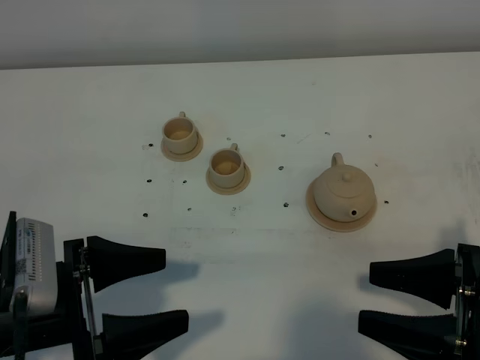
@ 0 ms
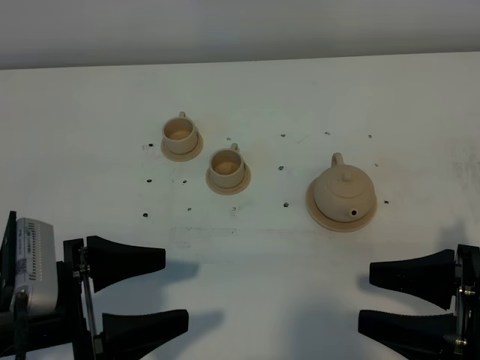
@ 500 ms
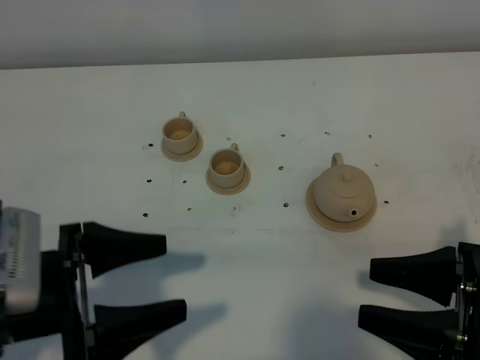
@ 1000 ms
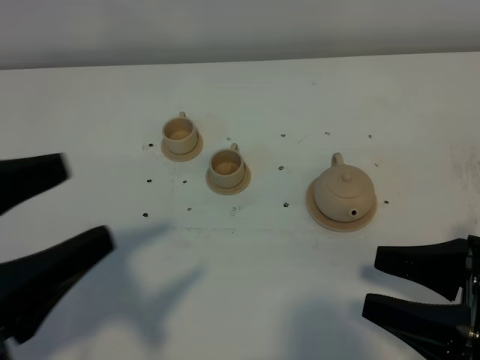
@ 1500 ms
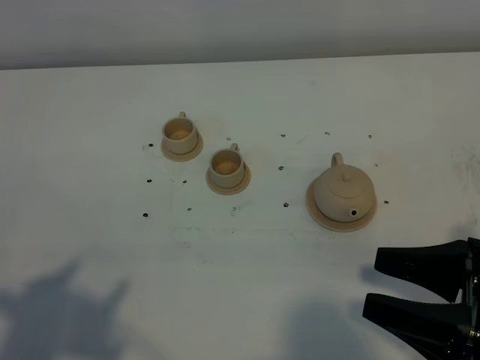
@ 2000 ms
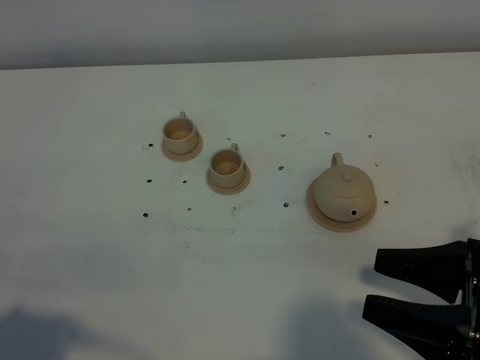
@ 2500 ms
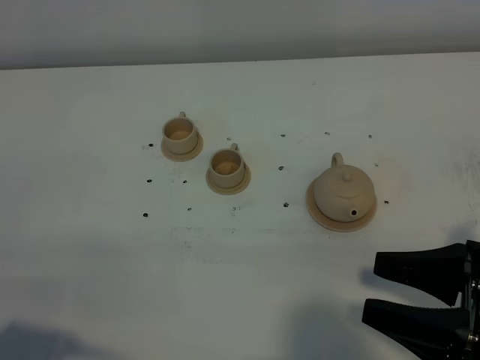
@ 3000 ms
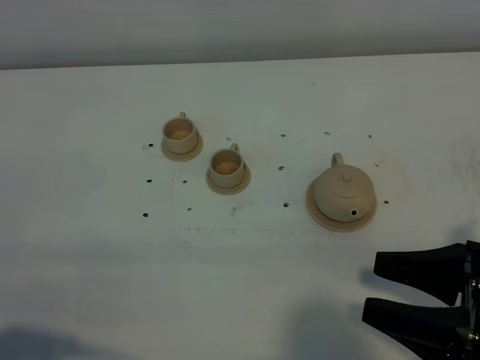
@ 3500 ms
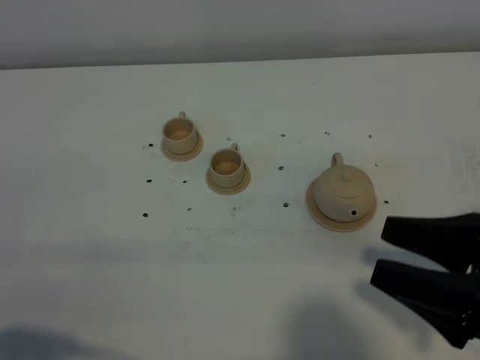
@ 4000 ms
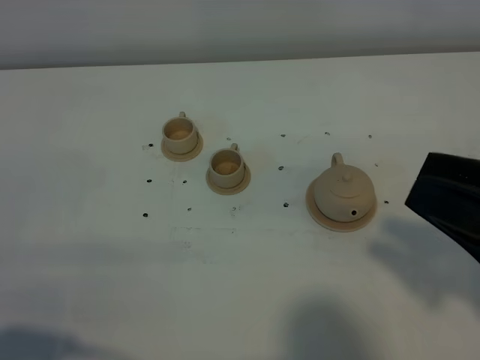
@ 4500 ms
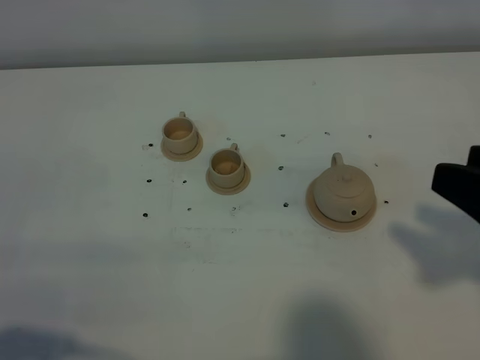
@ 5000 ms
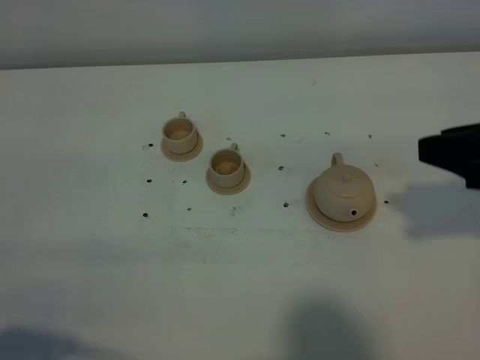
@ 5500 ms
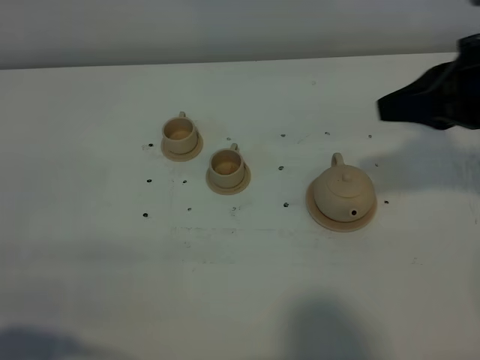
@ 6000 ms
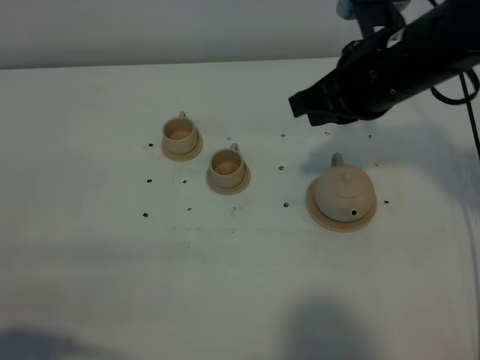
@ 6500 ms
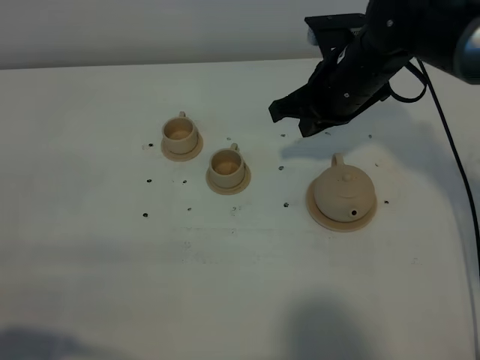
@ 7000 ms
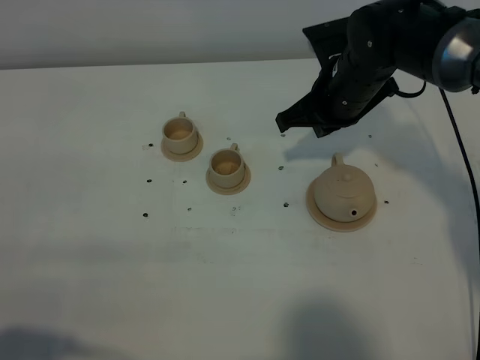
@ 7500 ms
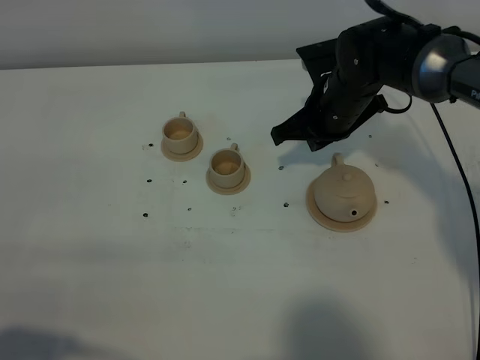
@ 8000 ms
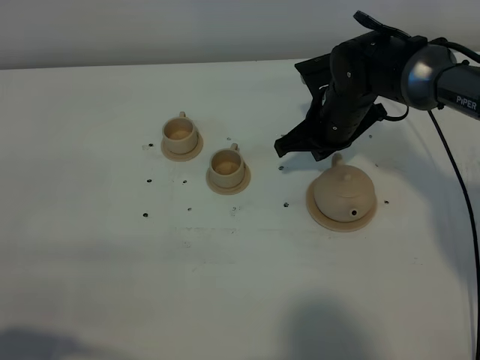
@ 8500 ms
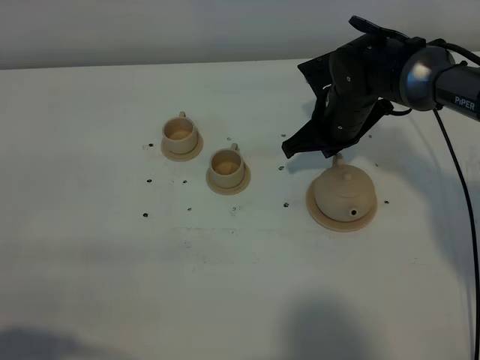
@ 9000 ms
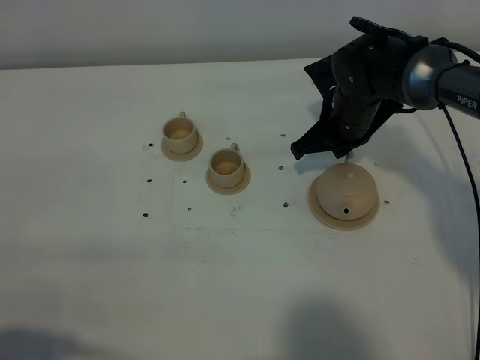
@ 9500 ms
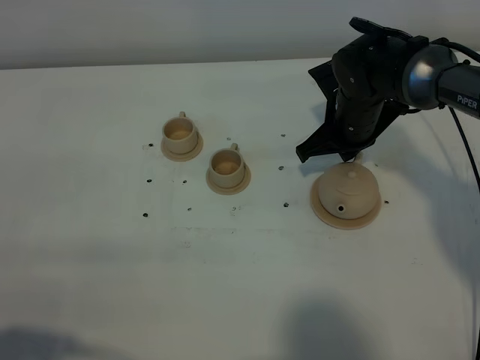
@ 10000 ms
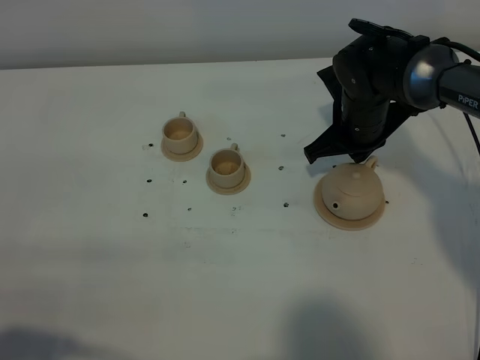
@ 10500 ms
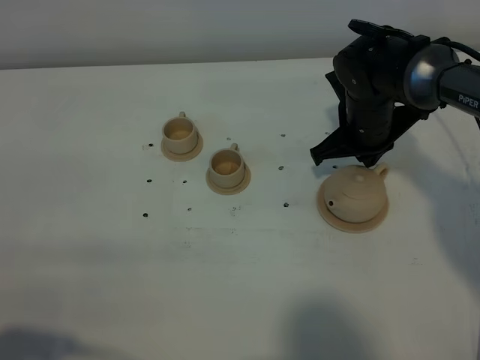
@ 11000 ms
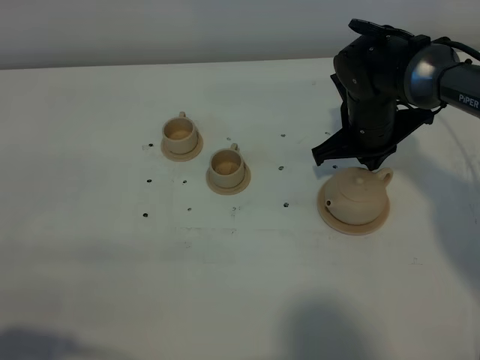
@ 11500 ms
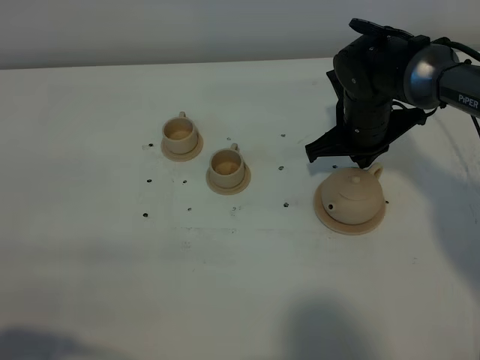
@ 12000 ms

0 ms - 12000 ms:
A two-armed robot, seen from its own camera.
Task of the whole recording: grasp the brown teapot and pour the tea into the two brown teacups one by one, put the brown teapot back in its original place.
0 ms - 2000 ms: The left gripper moves upward and backward, approximately 20 cm, and closes its fingers.
2000 ms - 4000 ms: The left gripper shifts roughly 10 cm downward, and closes its fingers.
4000 ms - 6000 ms: The right gripper shifts approximately 15 cm forward and upward, and closes.
6000 ms - 8000 ms: The right gripper moves downward, forward and to the left, roughly 25 cm.
8000 ms - 10000 ms: The grippers make only small movements.
10000 ms - 12000 ms: The grippers move only a little.

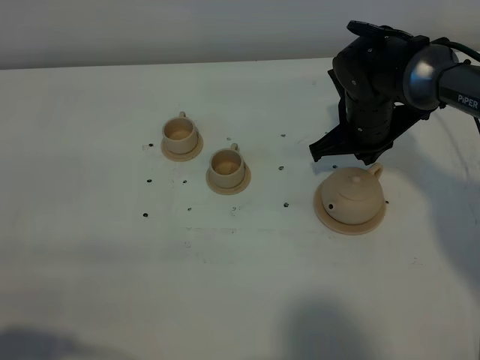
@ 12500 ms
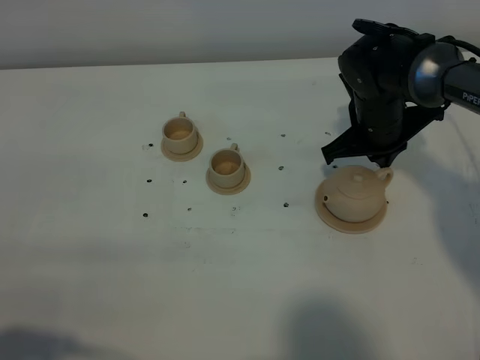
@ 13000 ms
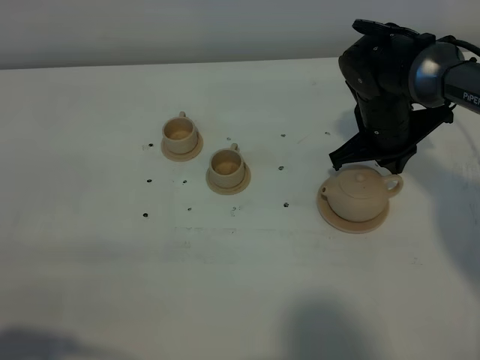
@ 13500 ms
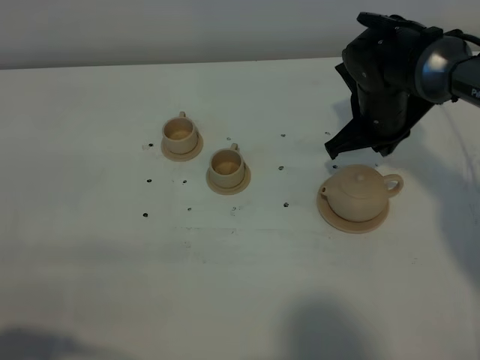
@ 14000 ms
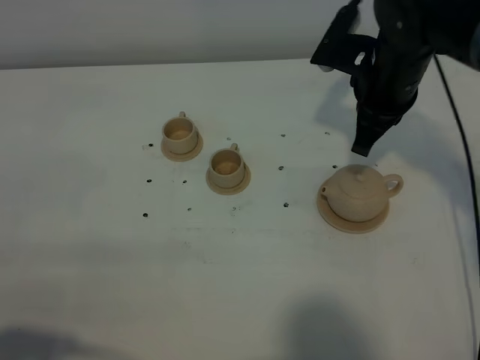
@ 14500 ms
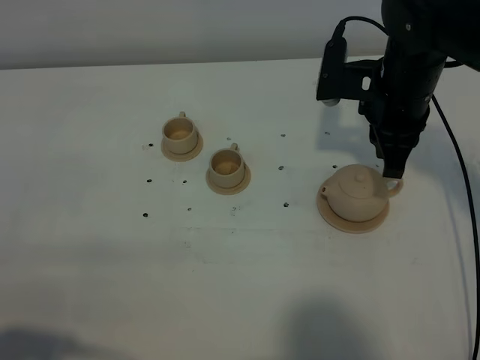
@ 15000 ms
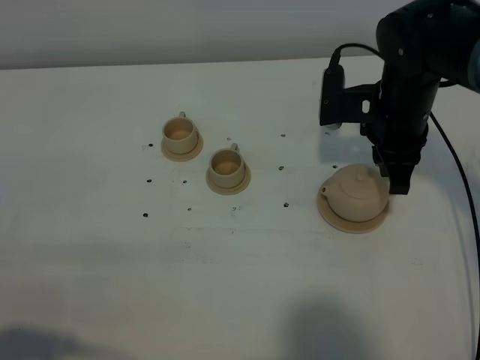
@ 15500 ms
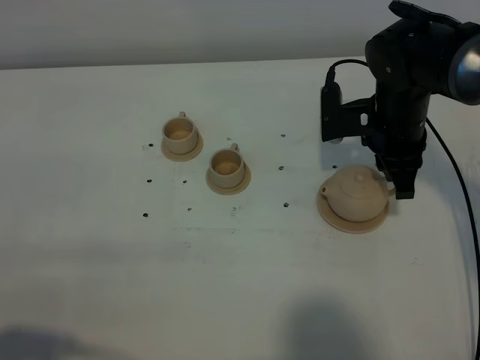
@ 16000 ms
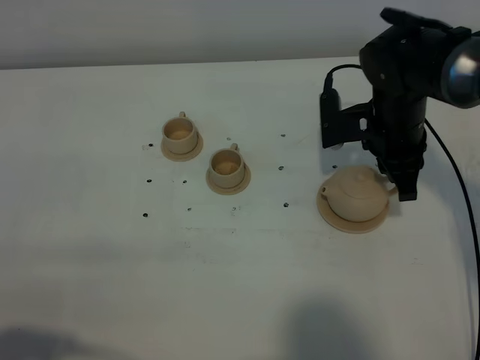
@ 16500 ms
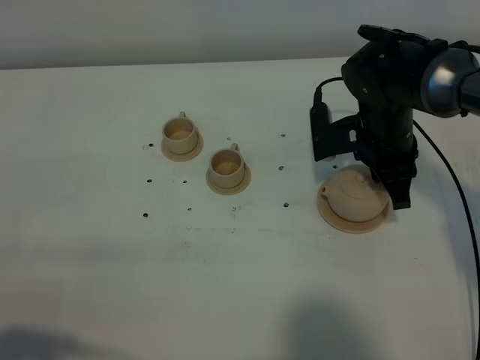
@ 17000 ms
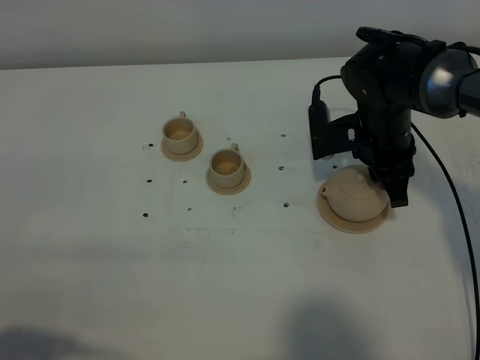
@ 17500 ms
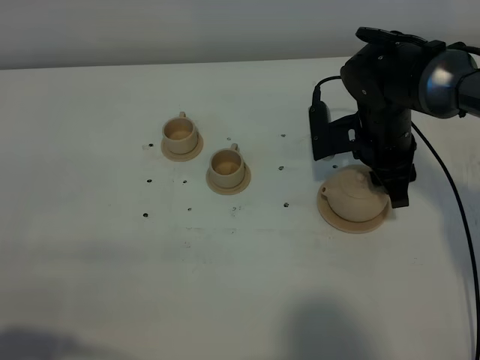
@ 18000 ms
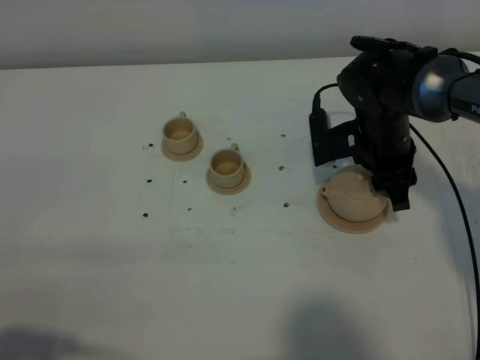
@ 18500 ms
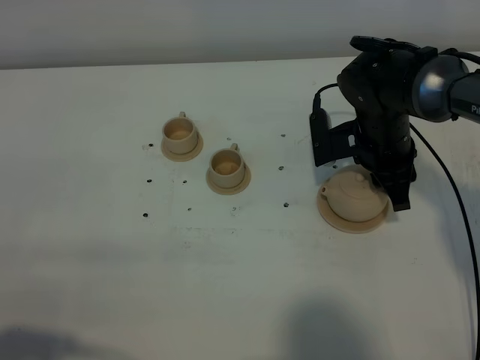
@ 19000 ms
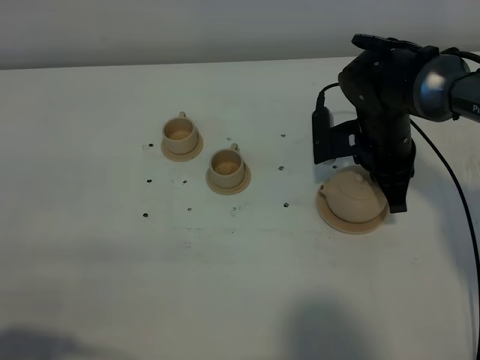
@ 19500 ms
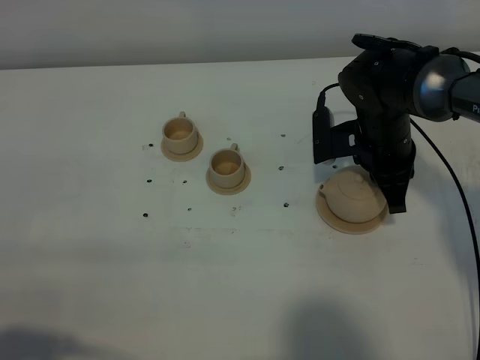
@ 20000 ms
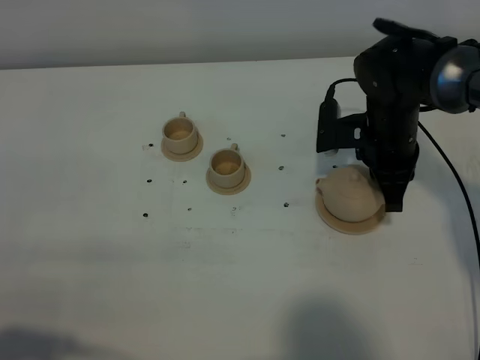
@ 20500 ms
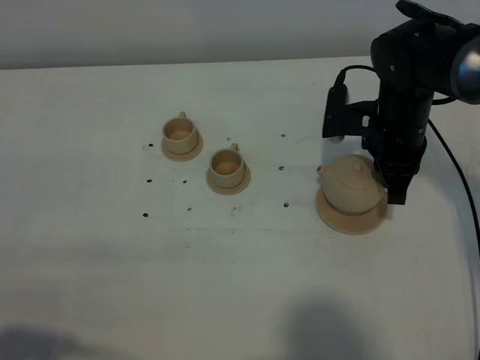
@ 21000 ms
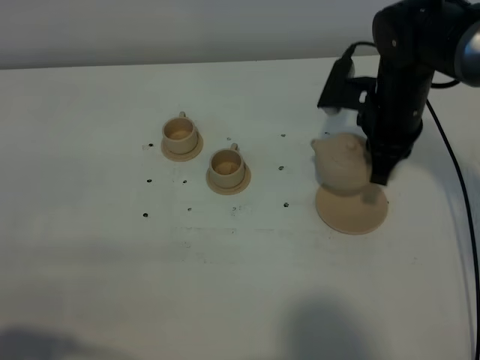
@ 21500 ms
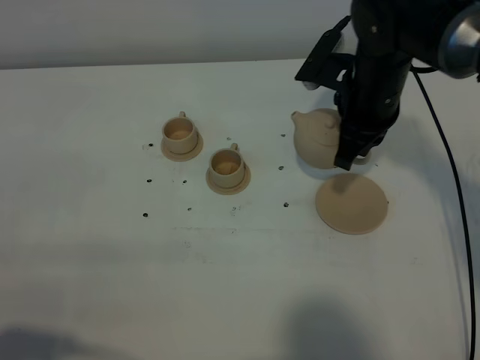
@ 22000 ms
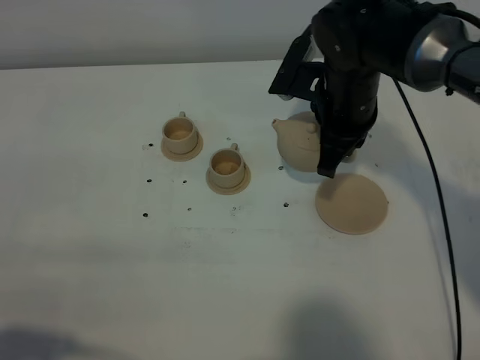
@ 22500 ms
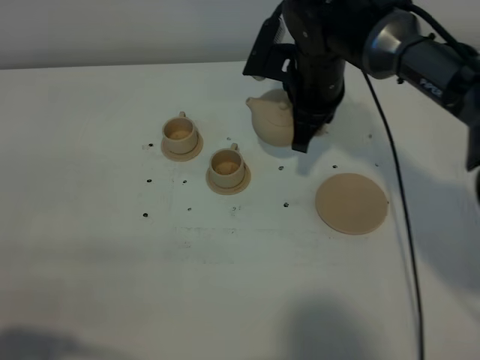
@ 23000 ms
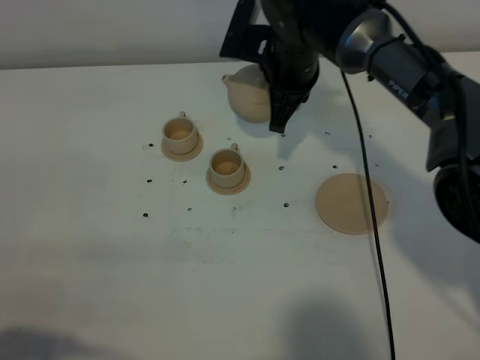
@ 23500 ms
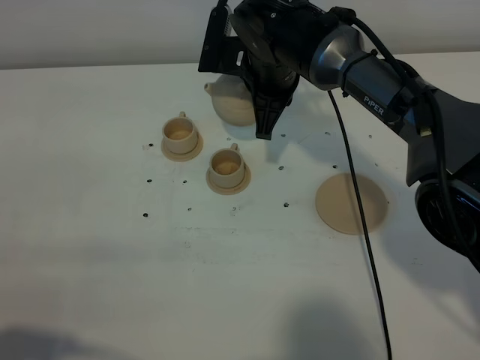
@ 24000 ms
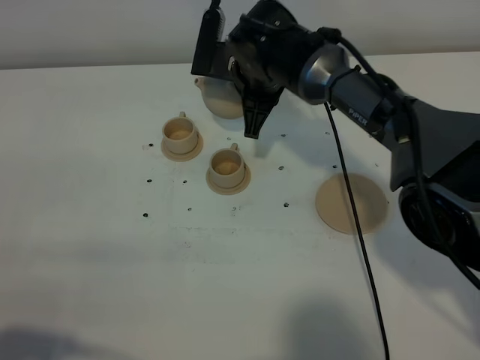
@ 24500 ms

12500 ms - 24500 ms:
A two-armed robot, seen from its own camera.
Task of the whole recording: grasp the brown teapot and pour the tea into the two brown teacups one by one, put the brown teapot back in its original place.
12500 ms - 14500 ms: The right gripper is displaced upward by roughly 10 cm.
14500 ms - 16500 ms: The right gripper goes roughly 5 cm downward, and opens.
16500 ms - 18500 ms: The right gripper opens.
18500 ms - 20500 ms: The right gripper closes its fingers.
20500 ms - 22500 ms: The right gripper moves upward and to the left, about 10 cm.
22500 ms - 24500 ms: The right gripper shifts about 10 cm to the left and forward.

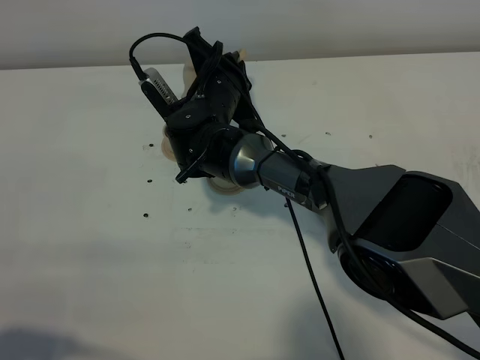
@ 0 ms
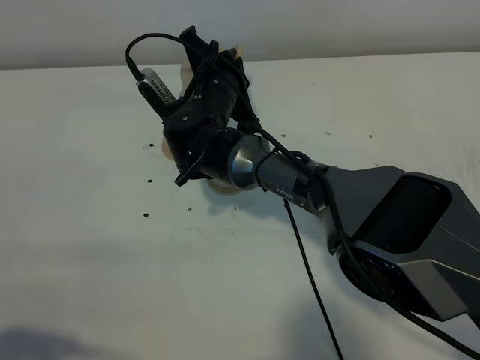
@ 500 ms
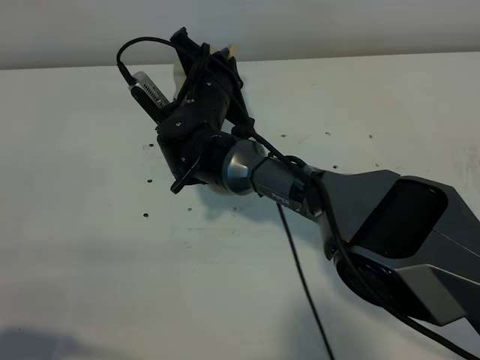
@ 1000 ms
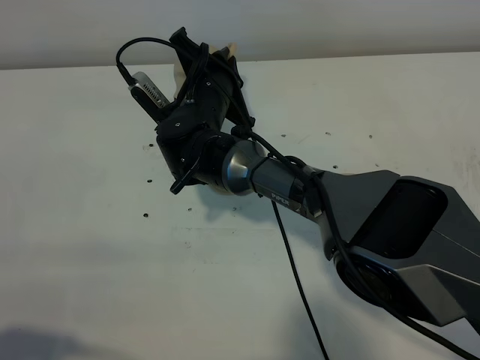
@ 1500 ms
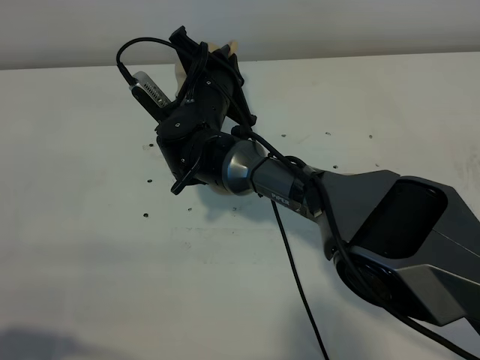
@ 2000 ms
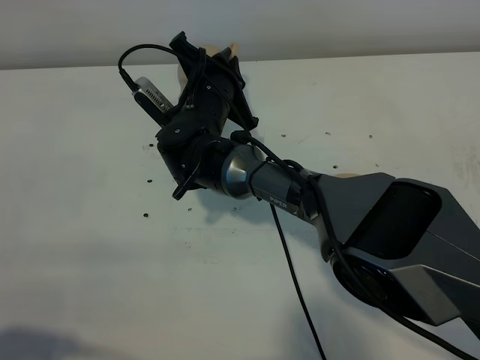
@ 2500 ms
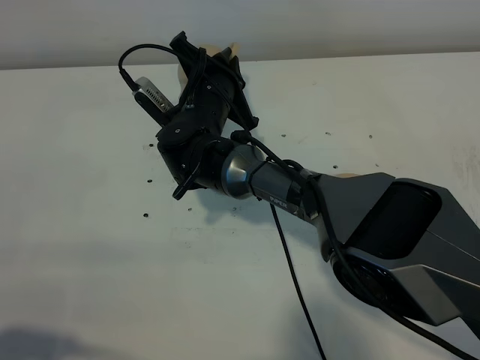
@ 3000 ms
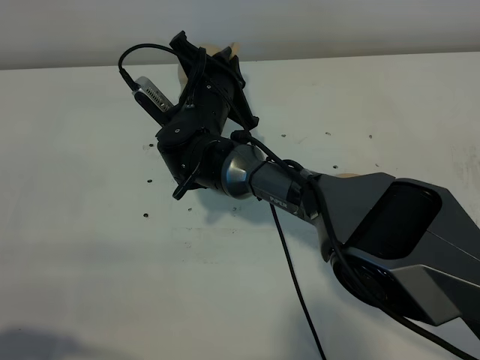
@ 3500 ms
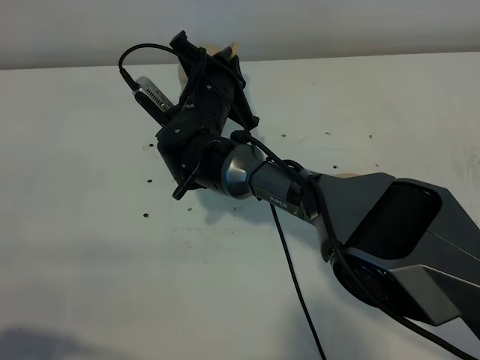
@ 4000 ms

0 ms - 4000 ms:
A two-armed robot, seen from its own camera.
Task of the whole recording: grasp the brown teapot and pour the tea into the two brown teacups one by one, put the brown teapot back in its original place.
0 ms - 2000 ms: There are only small adjustments of the grippers.
2000 ms - 4000 ms: Neither gripper changes place.
